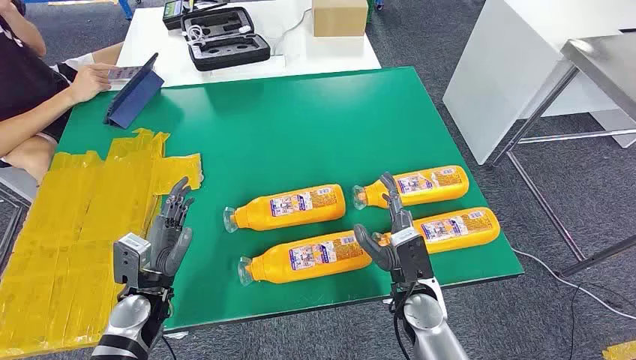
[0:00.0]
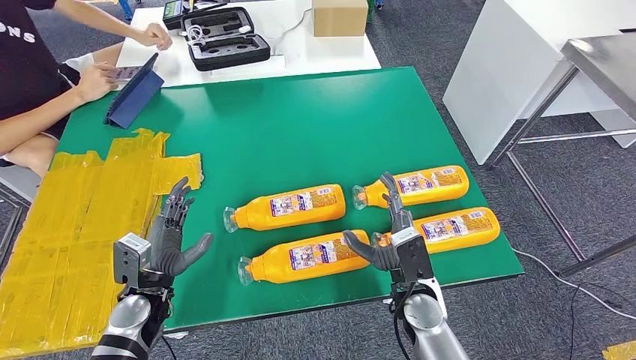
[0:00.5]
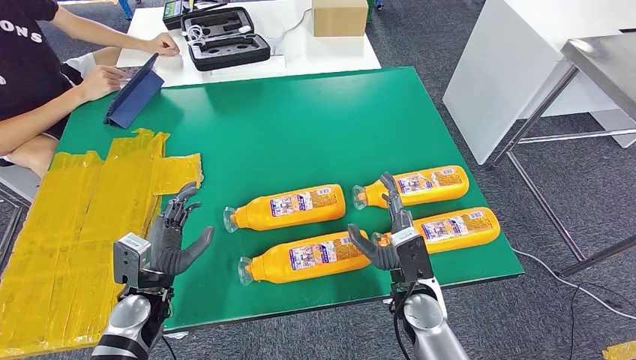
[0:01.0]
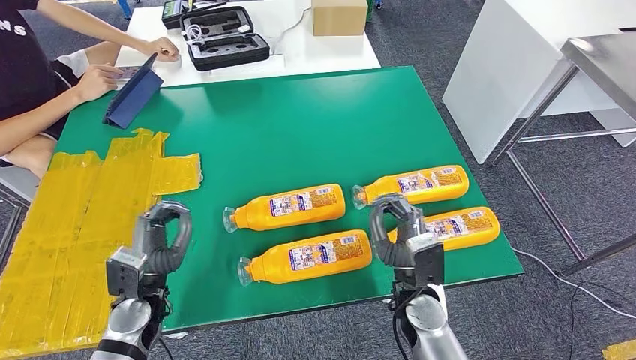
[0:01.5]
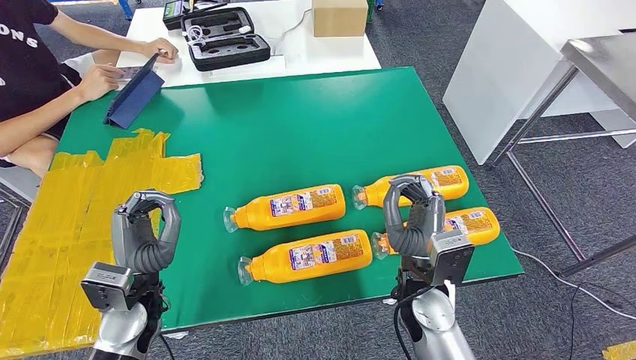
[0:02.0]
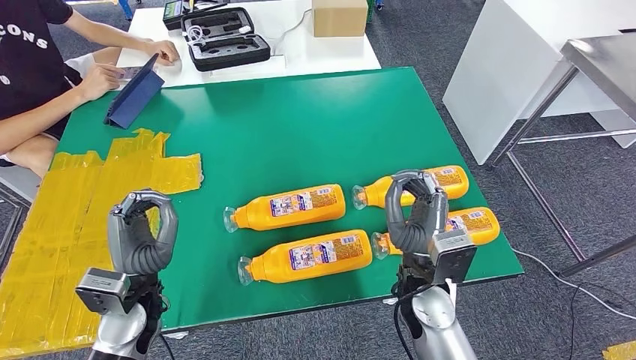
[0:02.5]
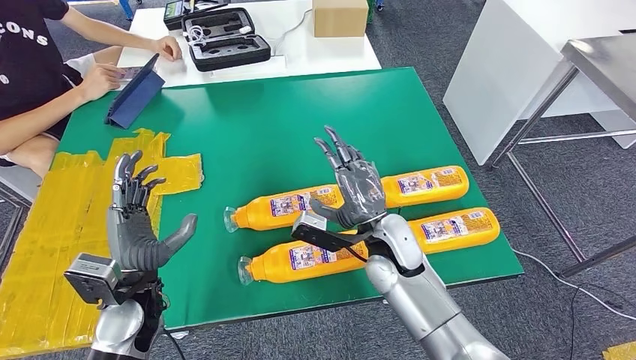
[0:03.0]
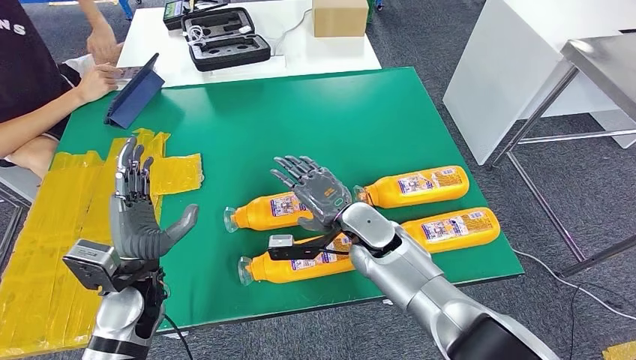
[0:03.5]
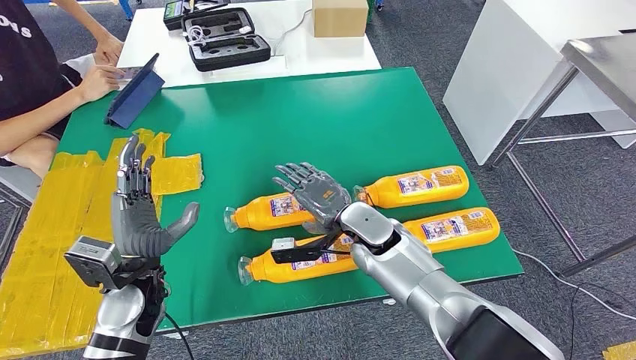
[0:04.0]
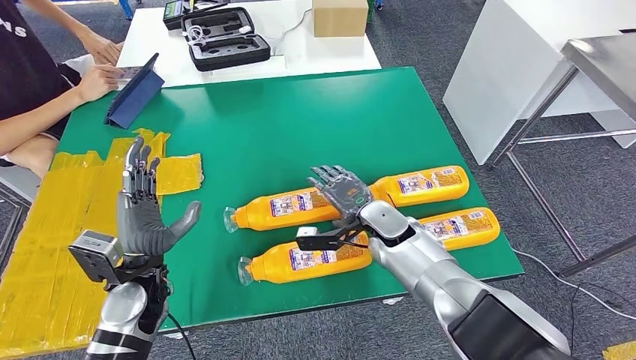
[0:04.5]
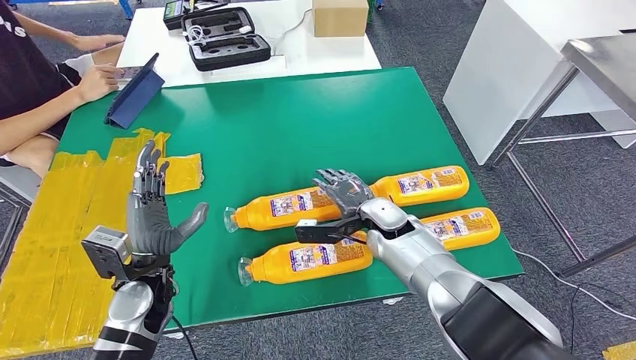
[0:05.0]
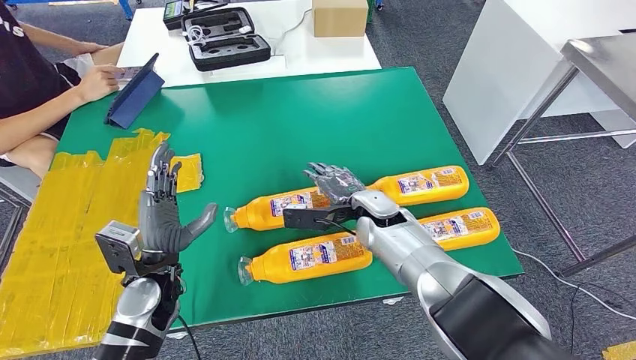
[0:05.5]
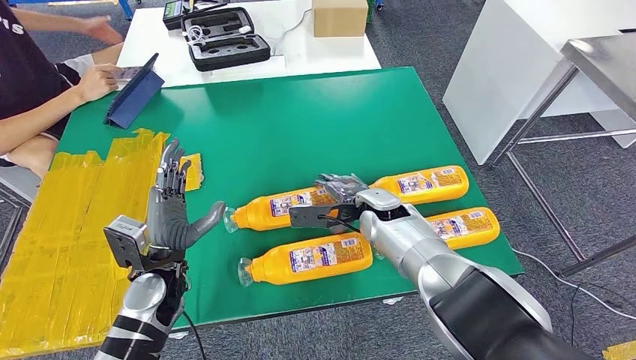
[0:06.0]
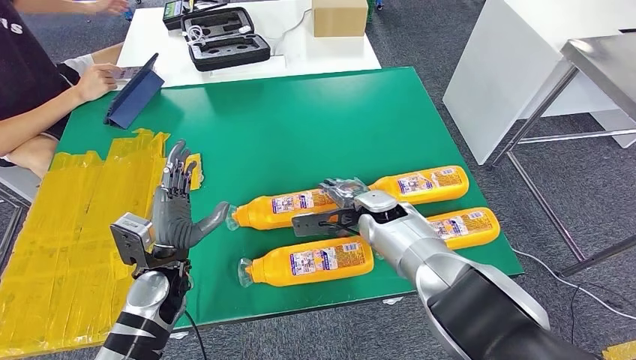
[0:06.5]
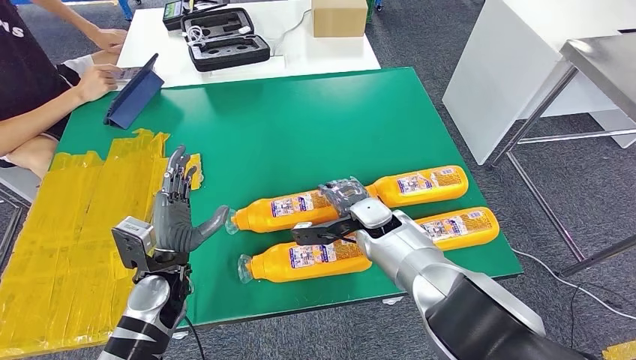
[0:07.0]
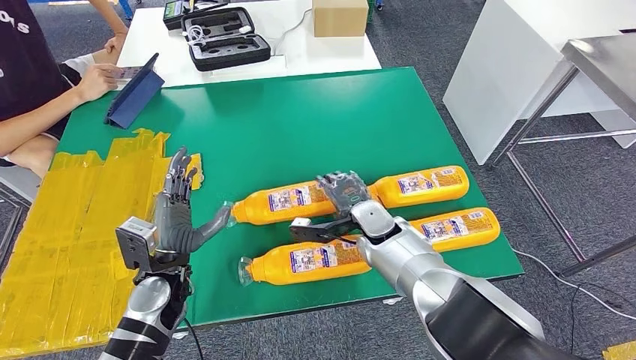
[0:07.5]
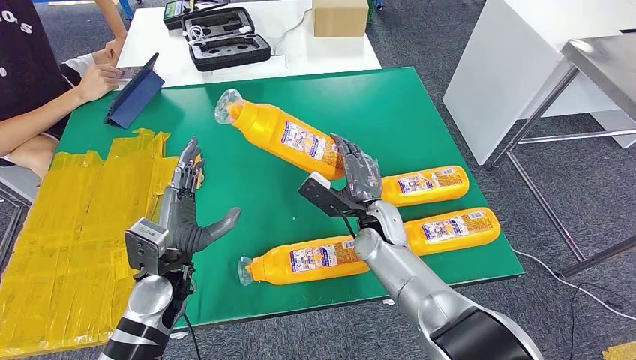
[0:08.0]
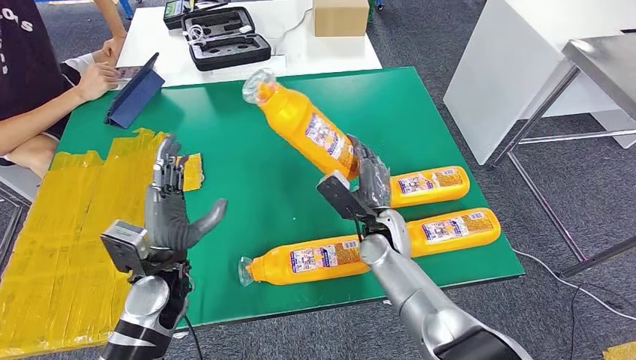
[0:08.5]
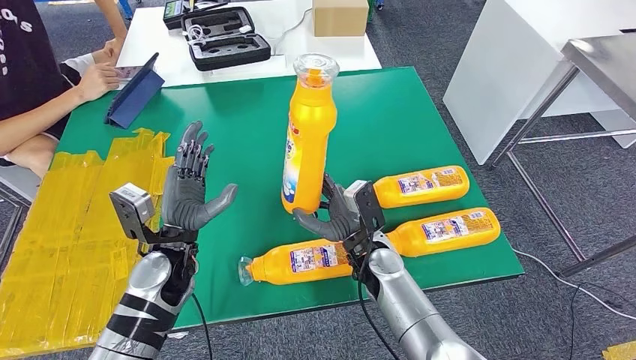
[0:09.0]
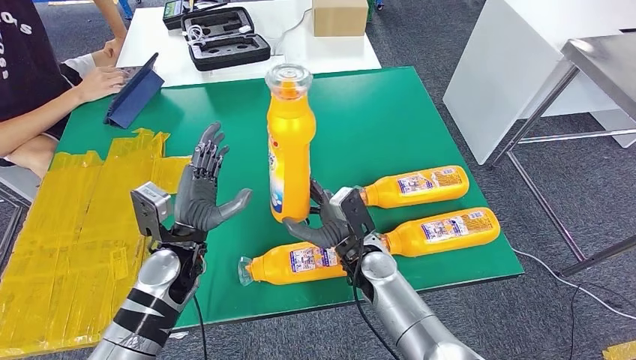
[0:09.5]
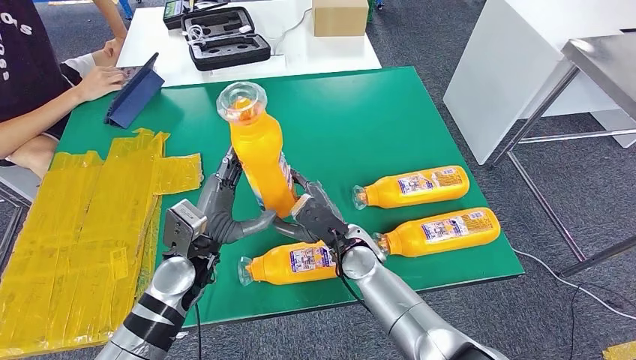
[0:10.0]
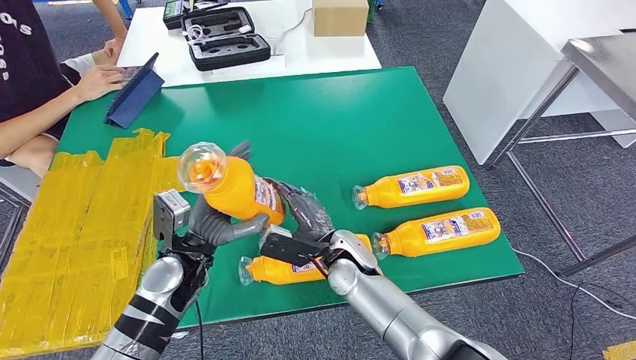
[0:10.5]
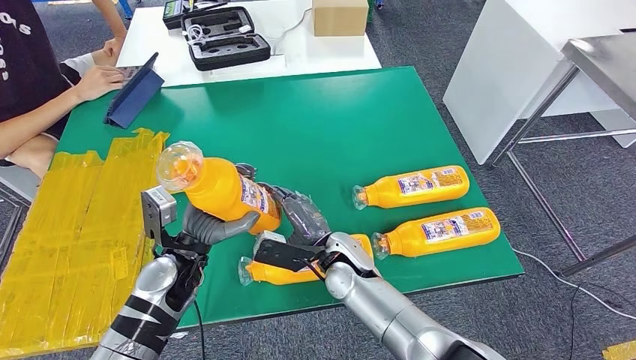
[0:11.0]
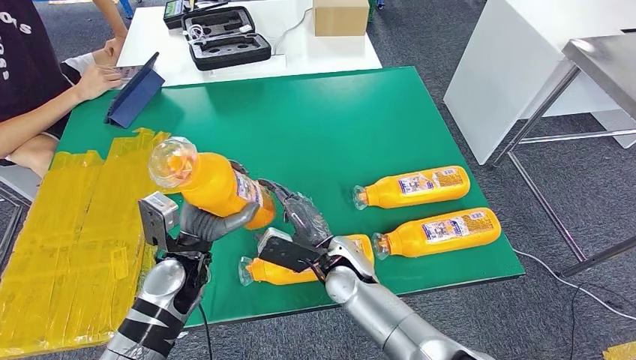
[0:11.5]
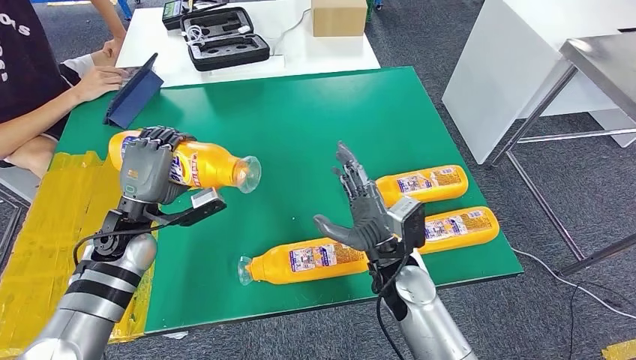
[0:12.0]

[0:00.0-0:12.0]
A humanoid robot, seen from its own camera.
Step, 0:00.0 to 0:07.5: Take the fast-moving consumer goods bottle from the table.
0:02.0 to 0:04.0: The right hand heads forward and to the left, covering some 15 cm.
0:04.0 to 0:06.0: The right hand moves roughly 5 cm.
0:08.0 to 0:10.0: The right hand ends up roughly 5 cm from where it was.

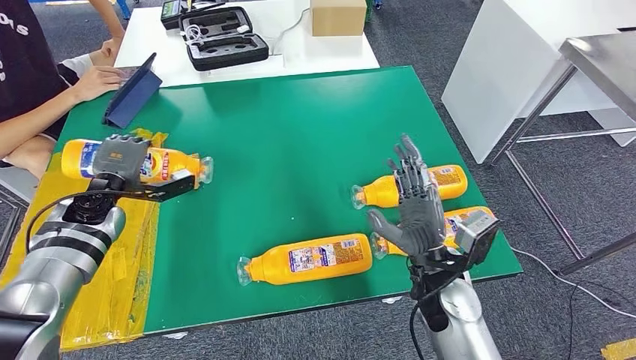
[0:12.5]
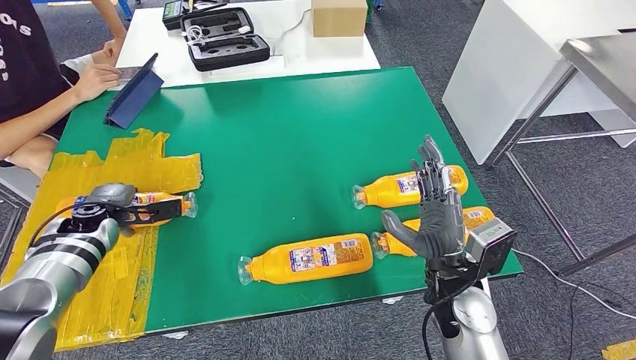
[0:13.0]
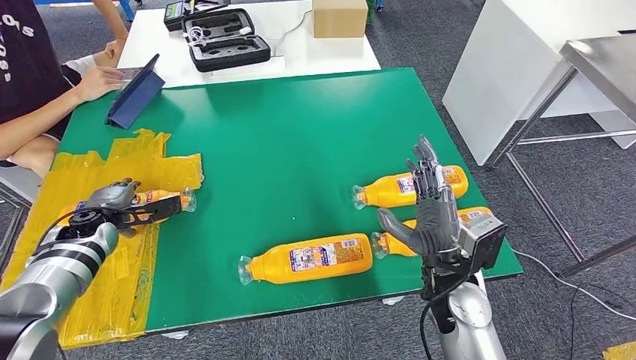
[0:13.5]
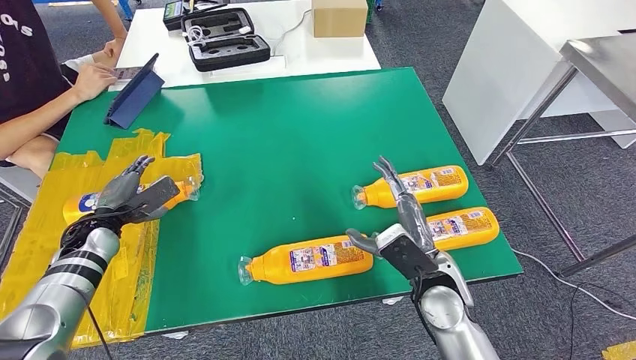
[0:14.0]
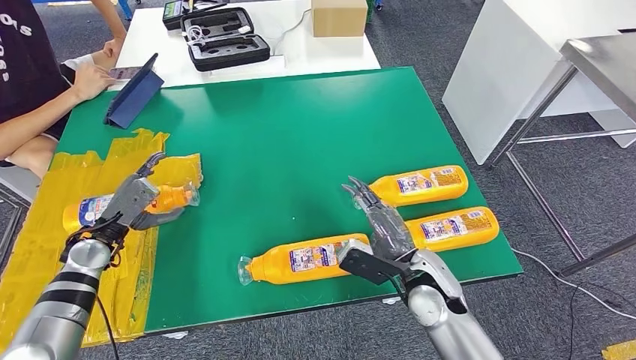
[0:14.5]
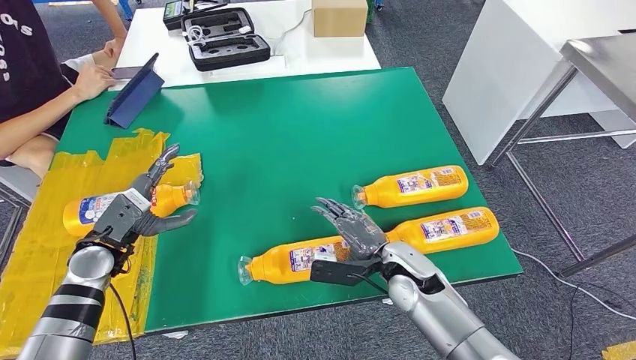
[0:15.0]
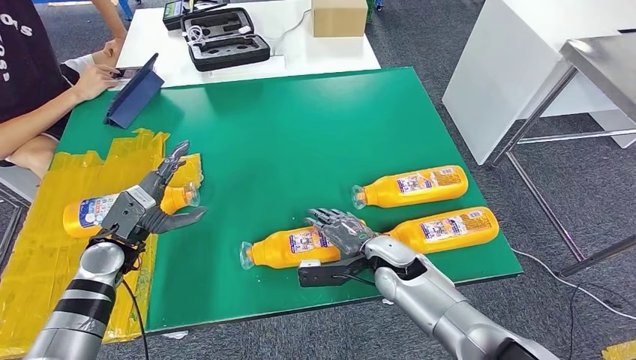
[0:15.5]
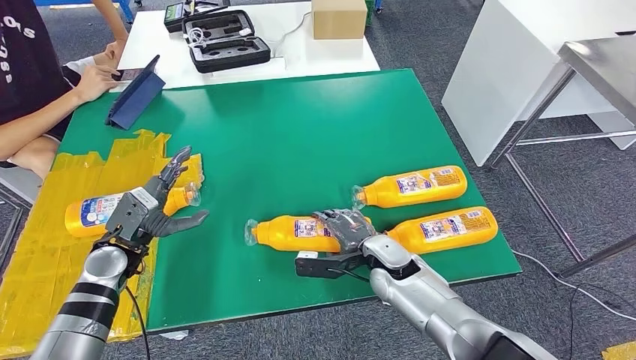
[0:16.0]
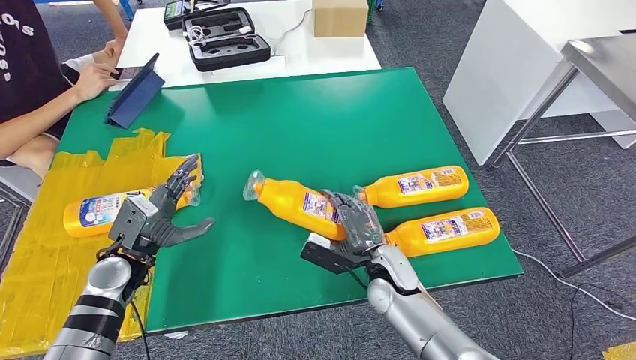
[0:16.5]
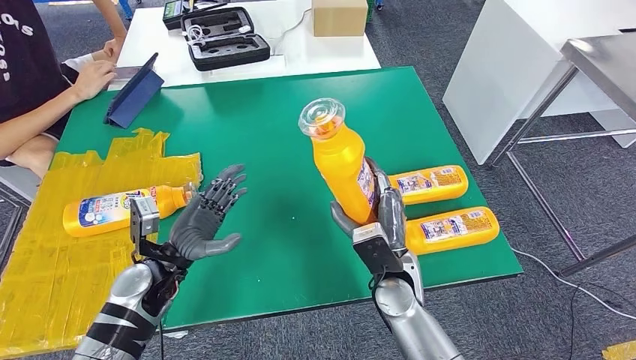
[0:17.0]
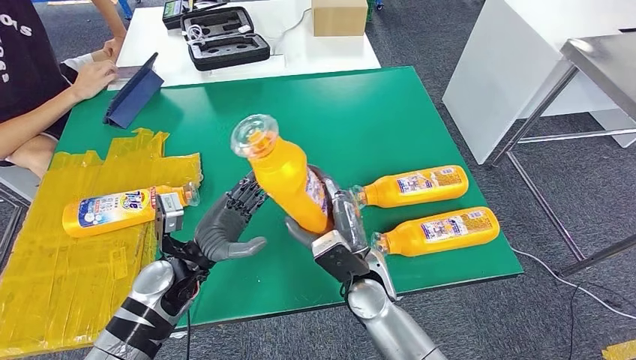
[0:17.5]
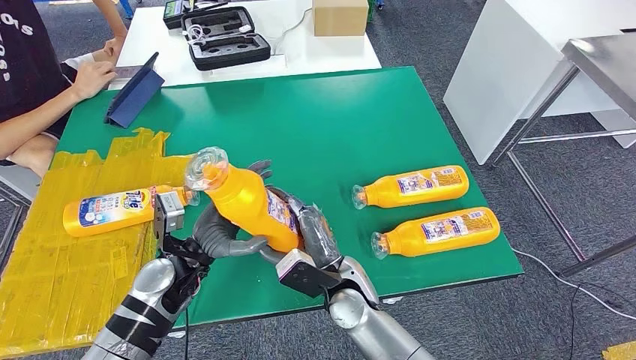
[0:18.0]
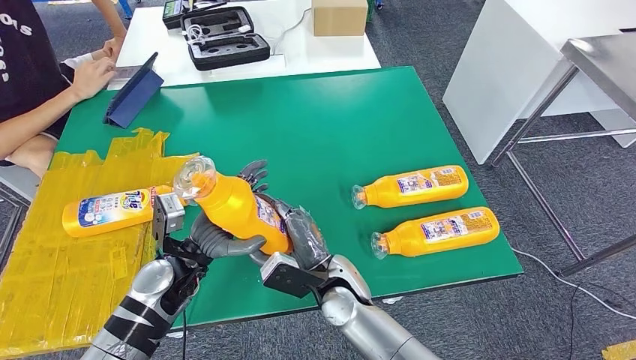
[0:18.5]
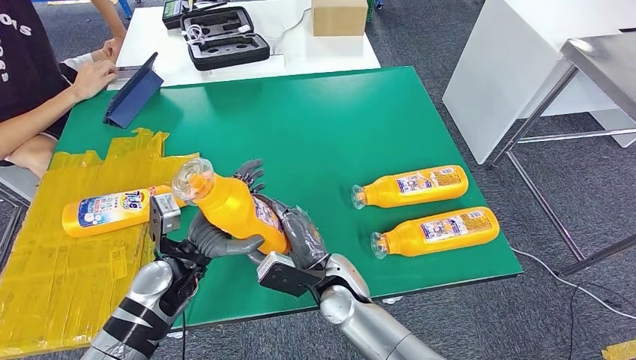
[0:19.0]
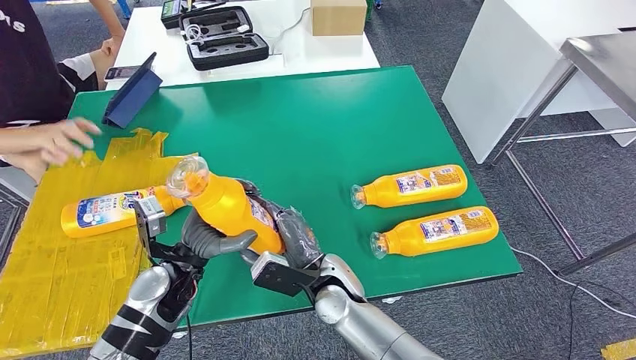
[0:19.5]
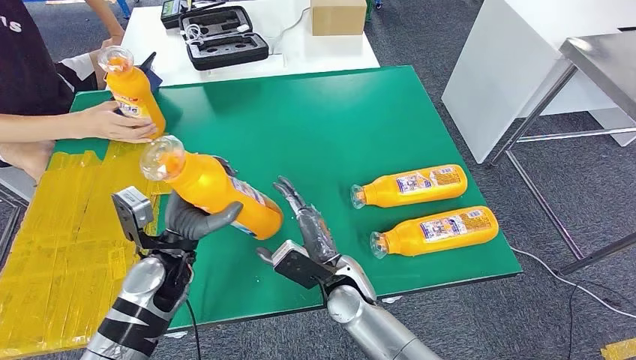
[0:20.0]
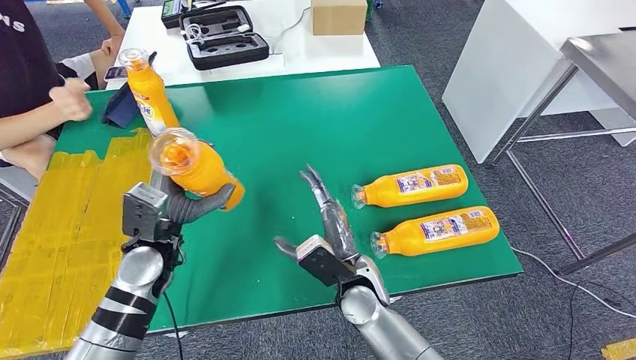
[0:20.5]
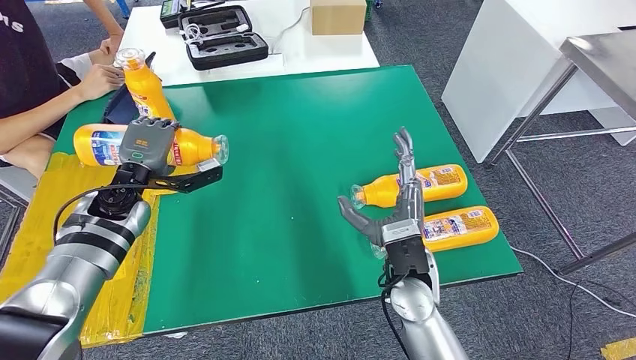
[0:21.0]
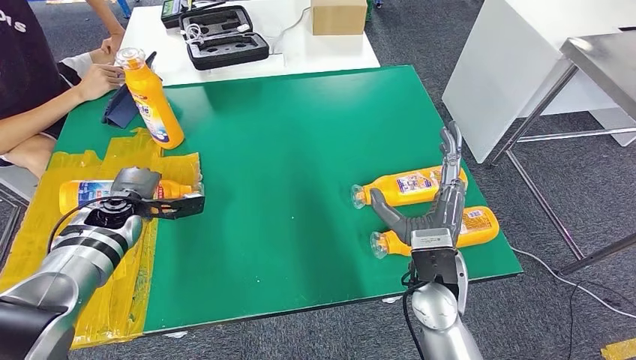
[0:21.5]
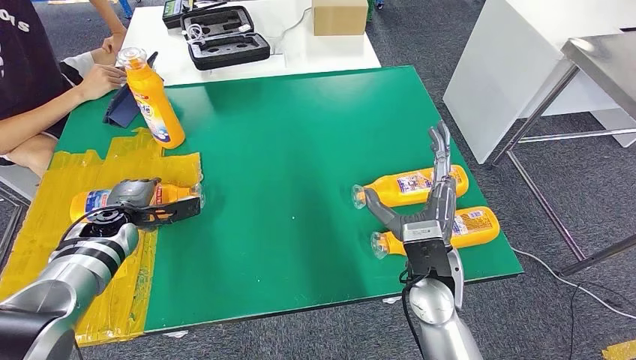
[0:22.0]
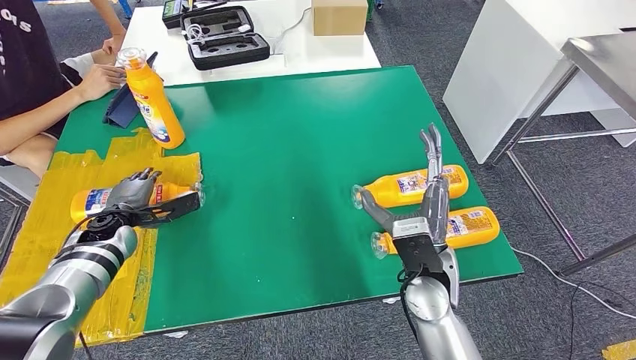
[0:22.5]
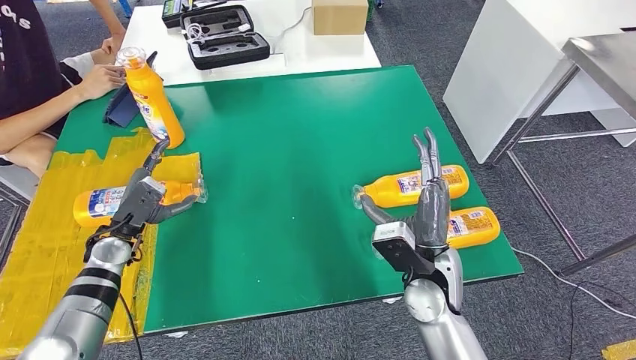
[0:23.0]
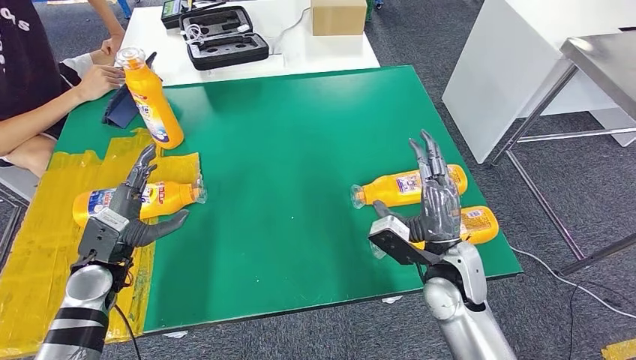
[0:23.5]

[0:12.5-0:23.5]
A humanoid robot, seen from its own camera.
Step, 0:13.5 to 0:16.5: Pick up the fast-moving consumer goods bottle from the table.
Step, 0:17.0 to 0:22.0: Flip the fast-moving consumer goods bottle to the front side.
0:12.5 to 0:14.5: The left hand heads backward and downward, covering approximately 10 cm.
0:14.5 to 0:16.0: The left hand heads to the right, covering some 5 cm. Meanwhile the right hand goes roughly 10 cm forward and downward.
0:21.5 to 0:23.5: The left hand goes roughly 10 cm backward. Meanwhile the right hand shifts by roughly 5 cm.
